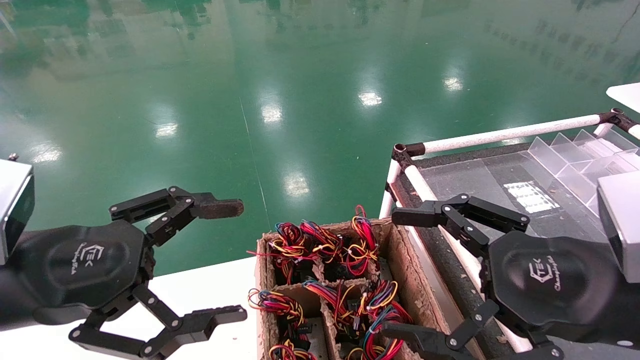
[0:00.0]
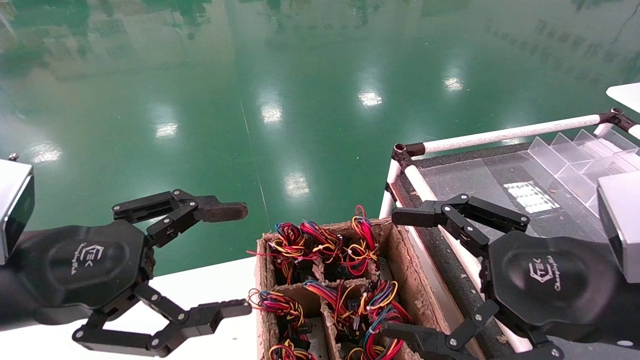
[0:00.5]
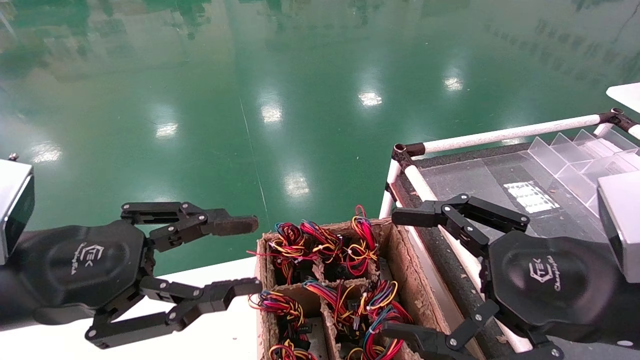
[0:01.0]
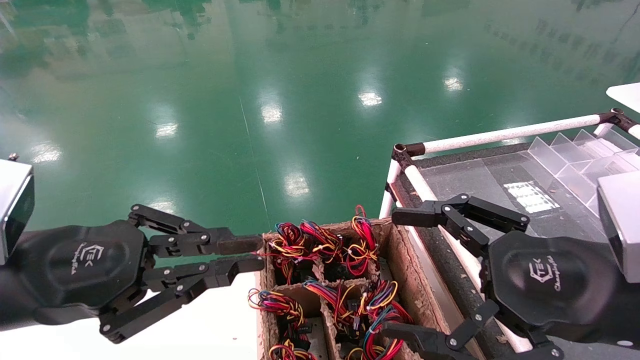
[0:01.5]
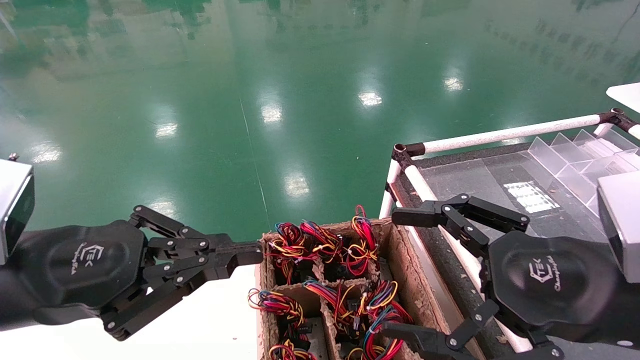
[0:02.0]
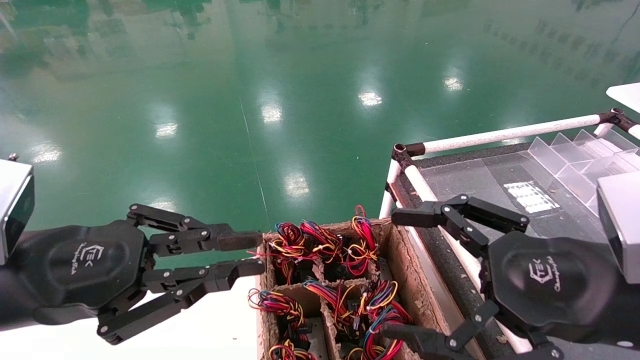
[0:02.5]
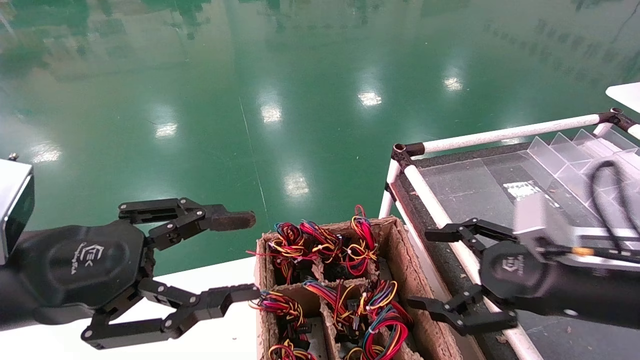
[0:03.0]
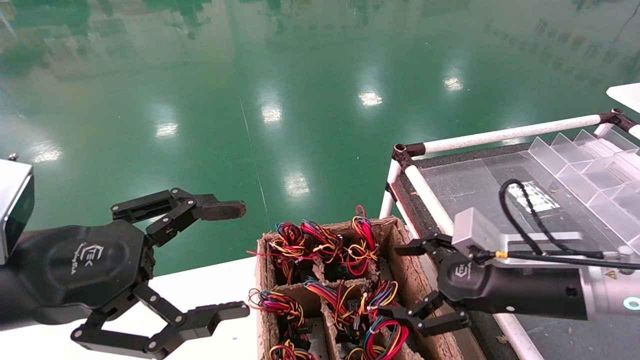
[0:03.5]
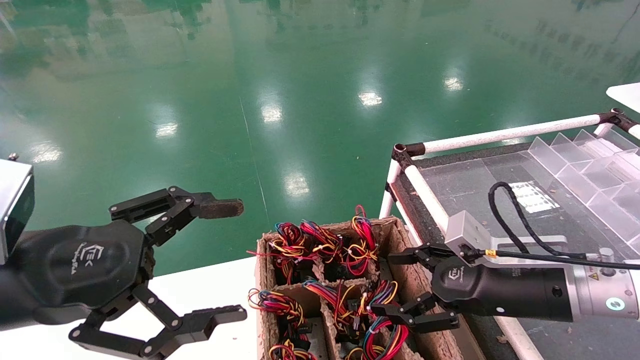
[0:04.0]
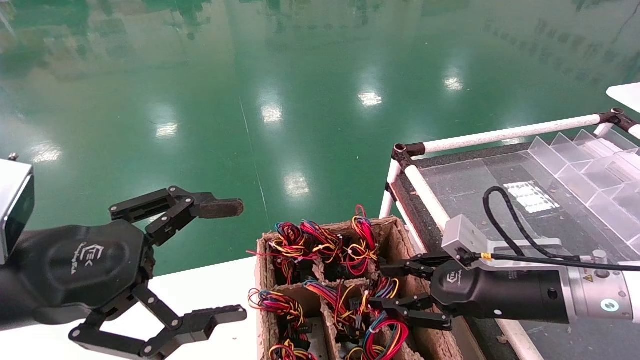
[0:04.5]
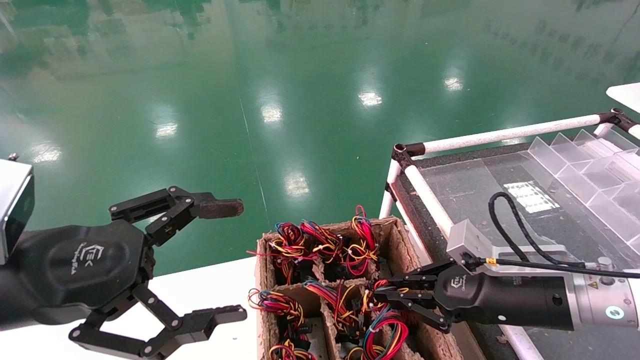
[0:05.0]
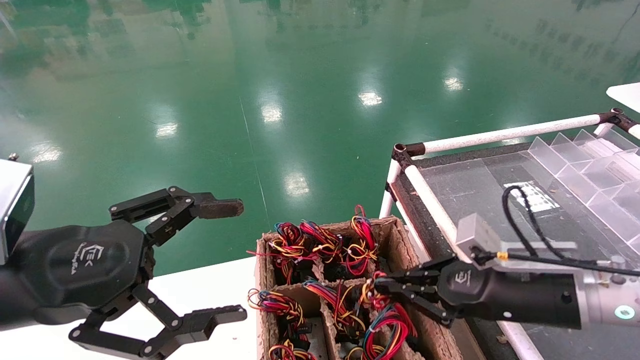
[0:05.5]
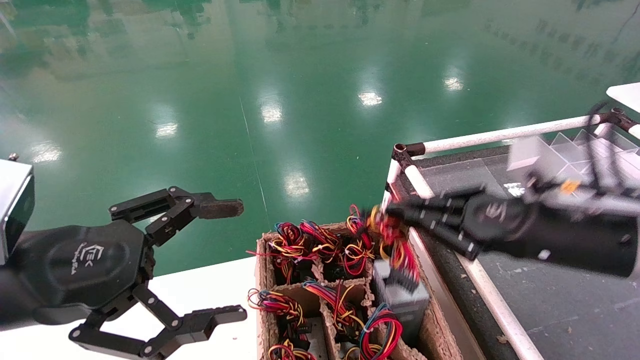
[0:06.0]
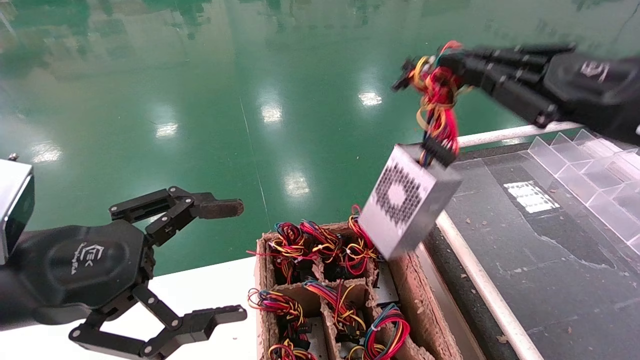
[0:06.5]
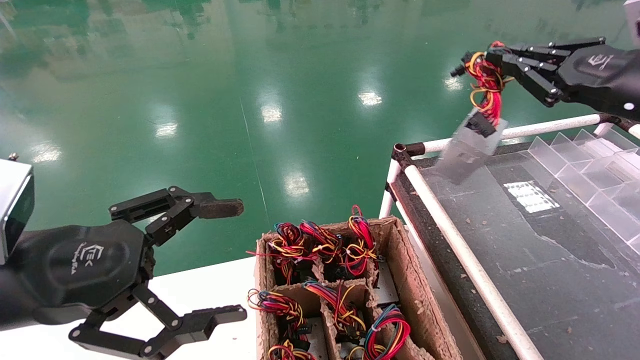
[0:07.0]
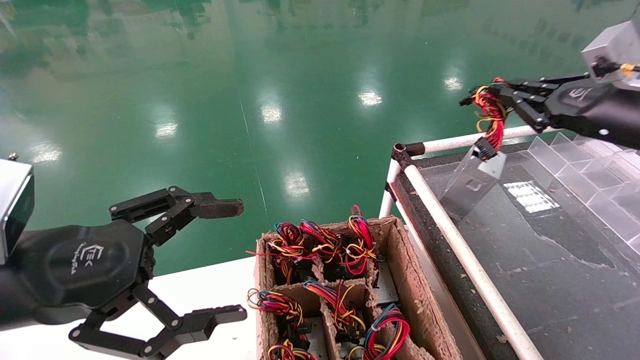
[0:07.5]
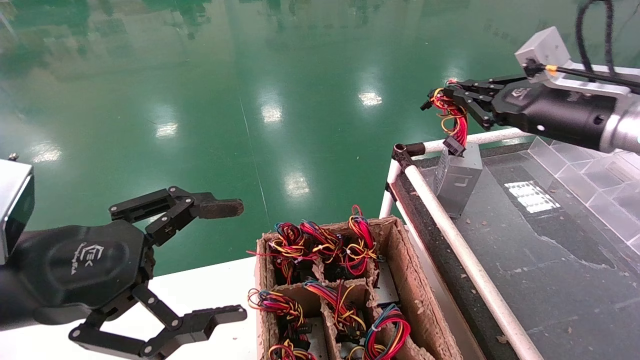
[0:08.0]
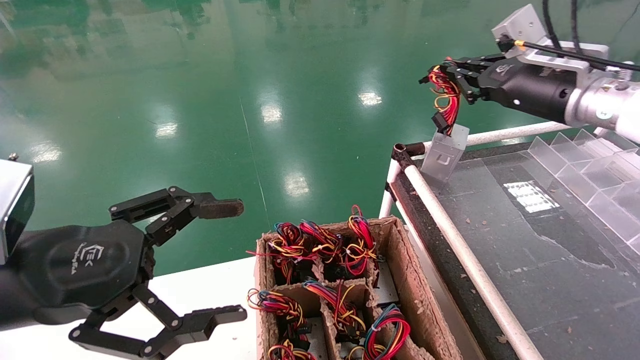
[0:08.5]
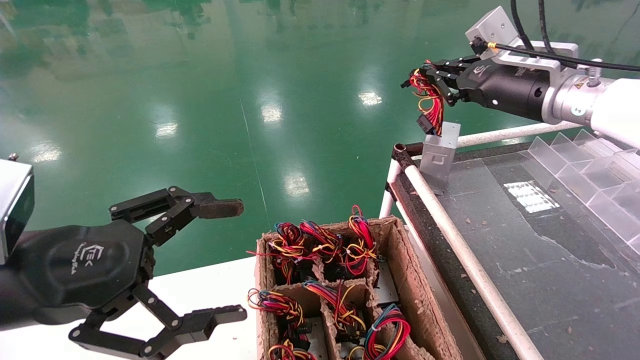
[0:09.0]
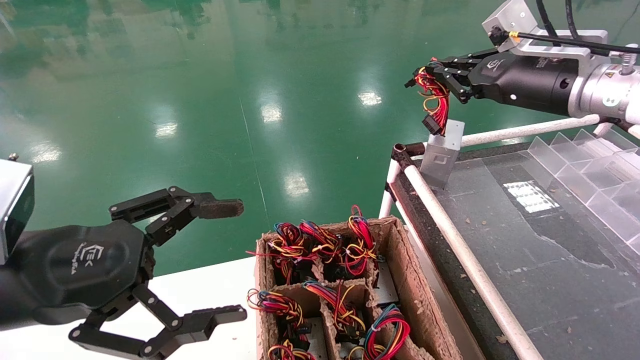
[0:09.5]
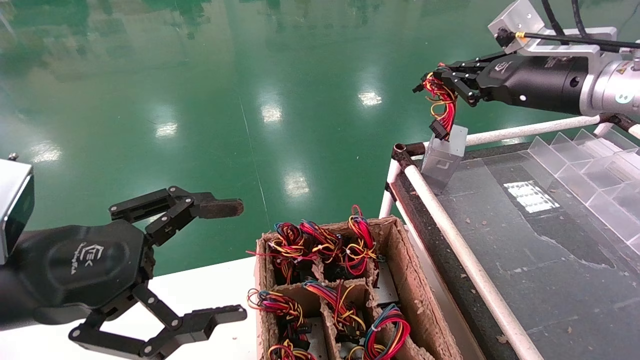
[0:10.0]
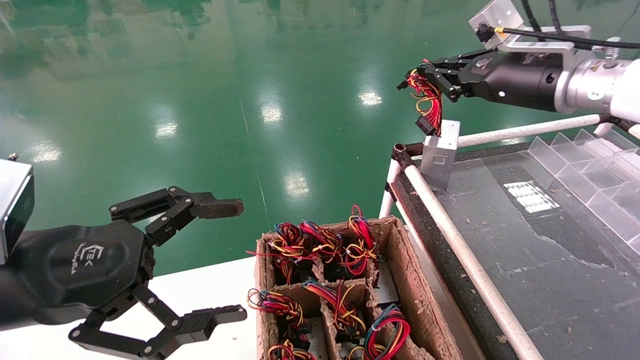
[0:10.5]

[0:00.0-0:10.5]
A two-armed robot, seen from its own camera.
Step, 0:02.0 to 0:05.0: Grab and lift the power supply from the large box.
0:00.0 to 0:02.0: The left gripper closes its fingers.
0:02.0 to 0:04.0: The right gripper travels forward and downward by roughly 15 cm, while the left gripper opens up.
0:04.0 to 0:06.5: The right gripper heads upward, covering roughly 20 cm, and closes its fingers.
0:06.5 to 0:08.5: The right gripper moves forward, about 15 cm.
0:08.5 to 0:10.5: The grippers move only a little.

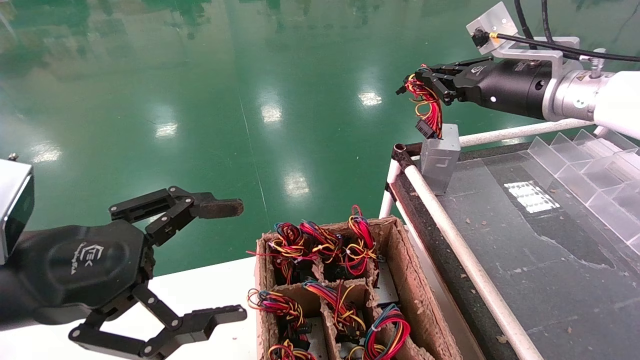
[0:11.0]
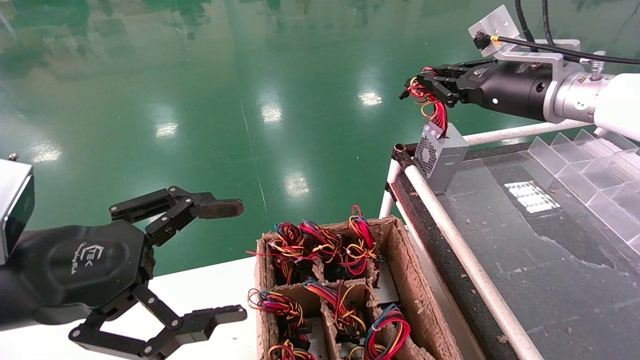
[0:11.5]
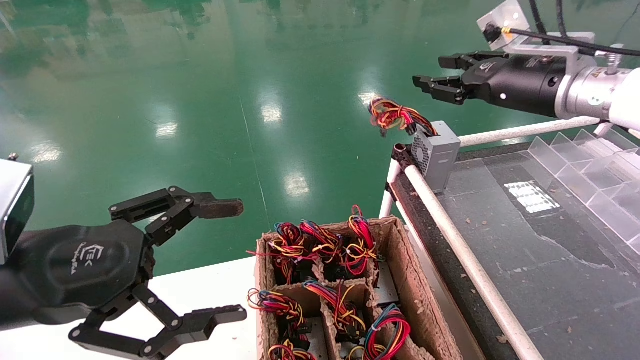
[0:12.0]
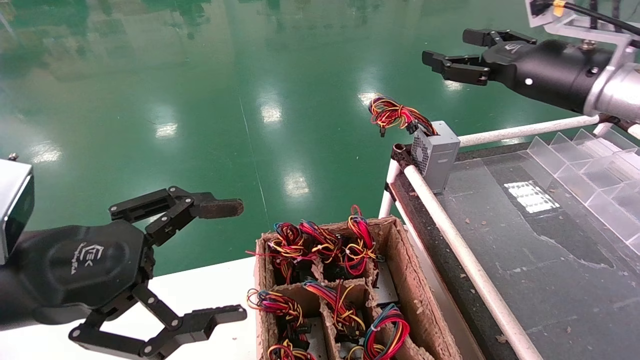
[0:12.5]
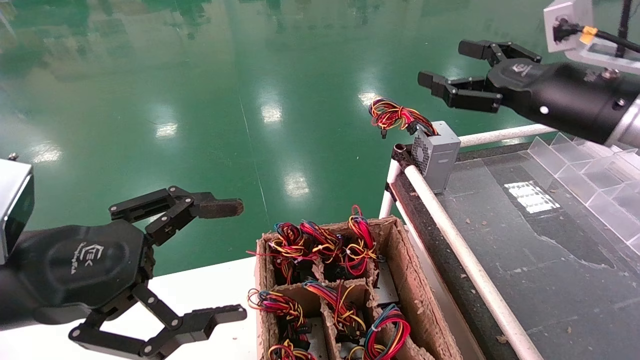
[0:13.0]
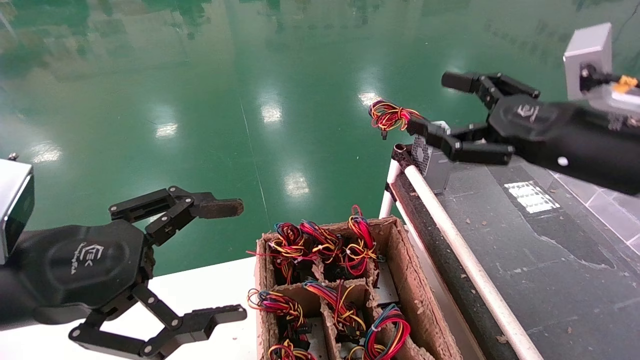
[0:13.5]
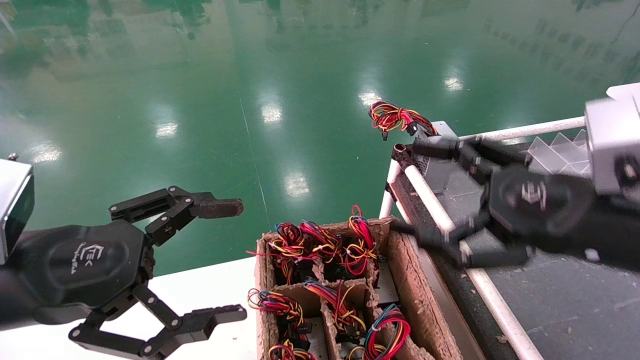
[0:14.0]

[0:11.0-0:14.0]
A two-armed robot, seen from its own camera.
0:11.0 to 0:12.5: The right gripper opens its fingers.
0:12.5 to 0:14.0: The right gripper is displaced backward and downward by some 20 cm.

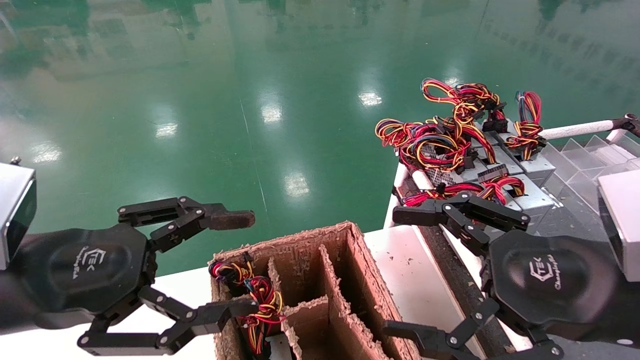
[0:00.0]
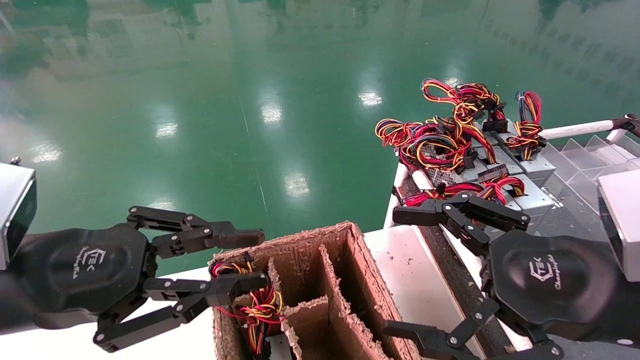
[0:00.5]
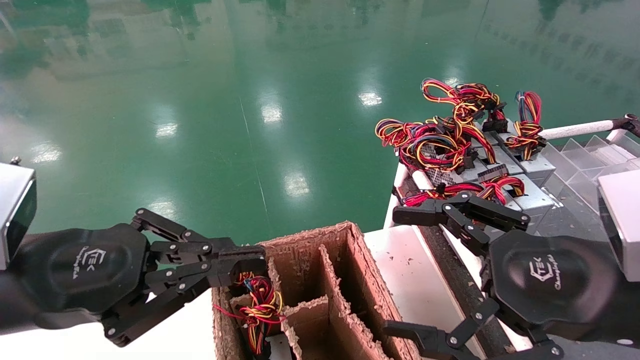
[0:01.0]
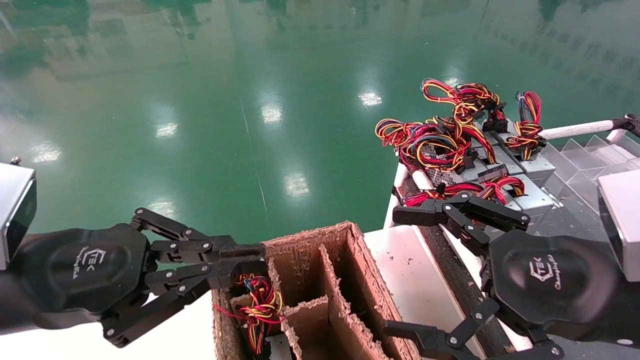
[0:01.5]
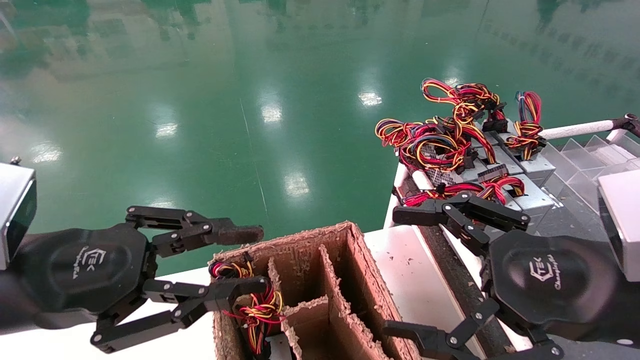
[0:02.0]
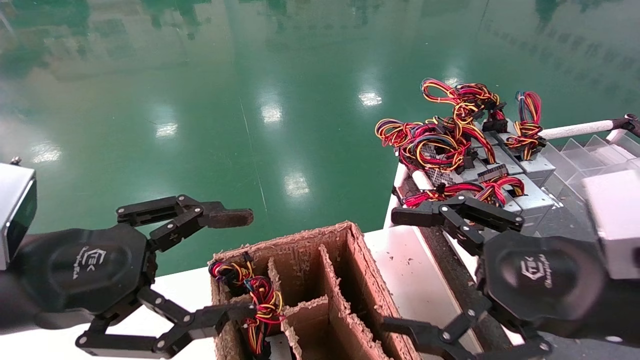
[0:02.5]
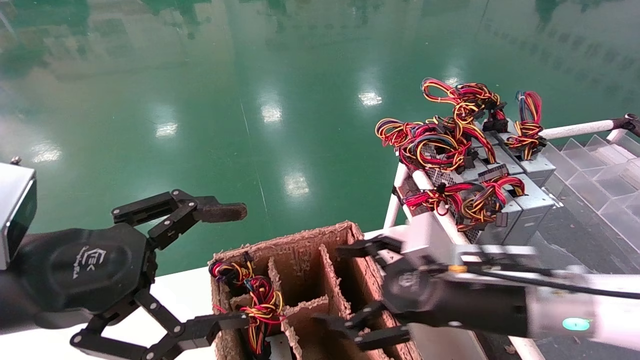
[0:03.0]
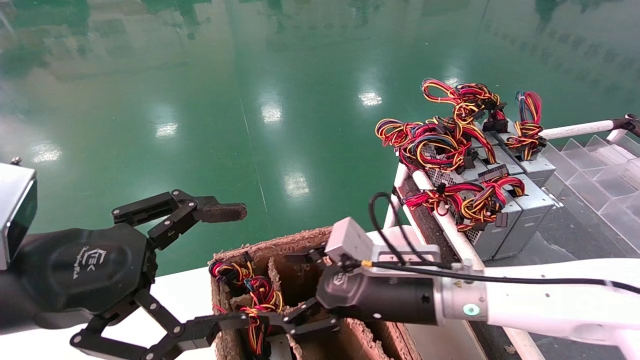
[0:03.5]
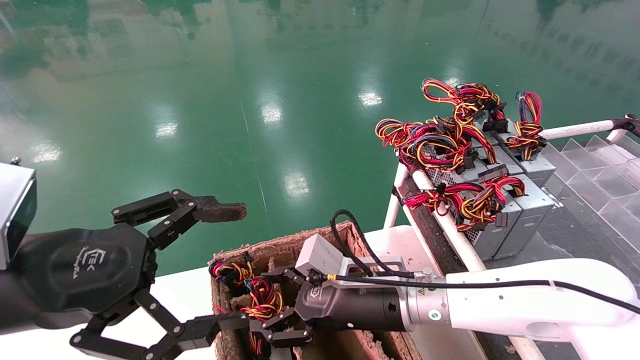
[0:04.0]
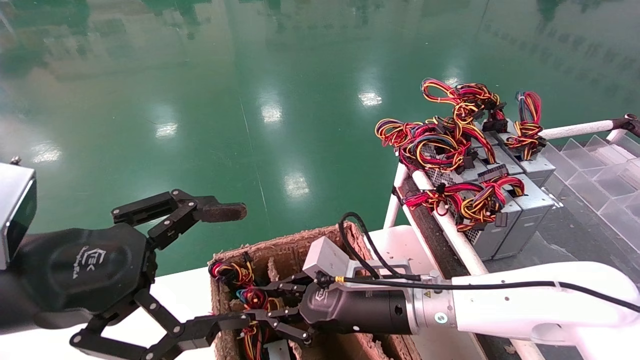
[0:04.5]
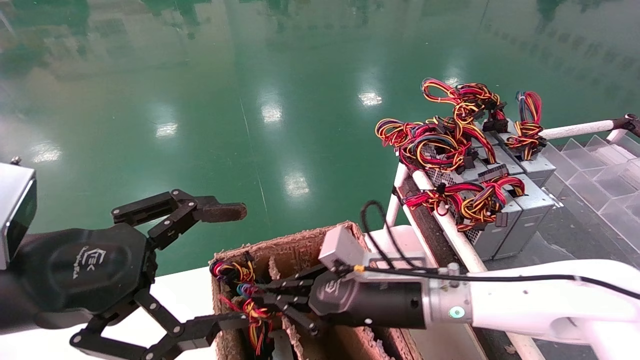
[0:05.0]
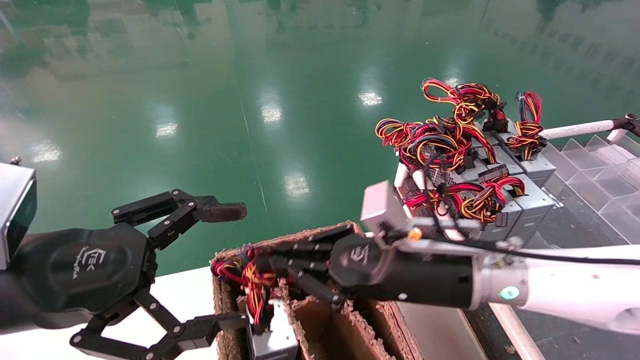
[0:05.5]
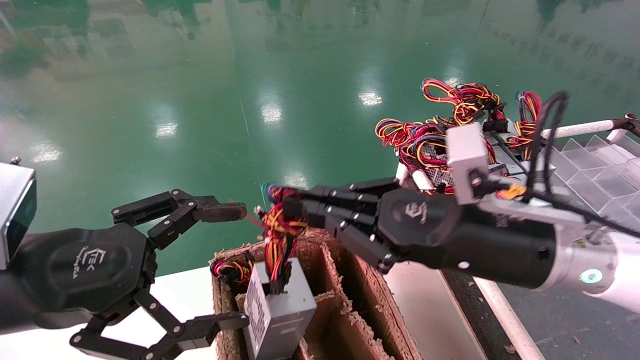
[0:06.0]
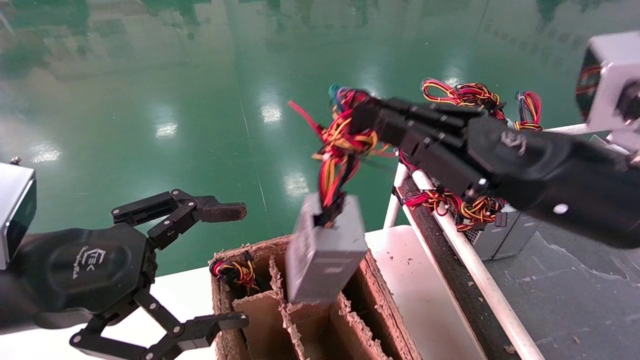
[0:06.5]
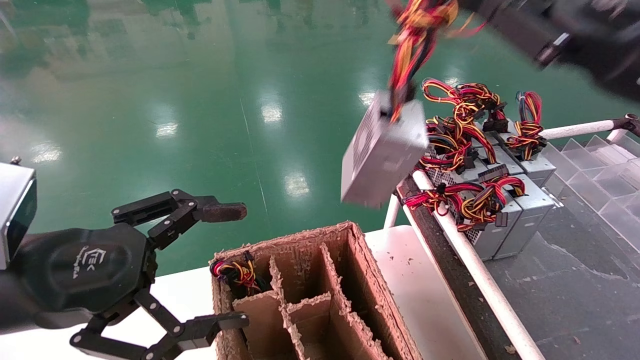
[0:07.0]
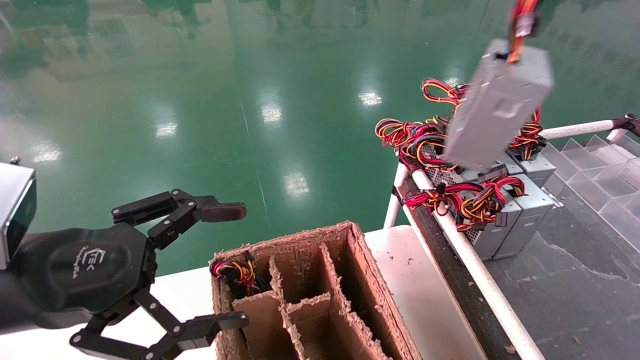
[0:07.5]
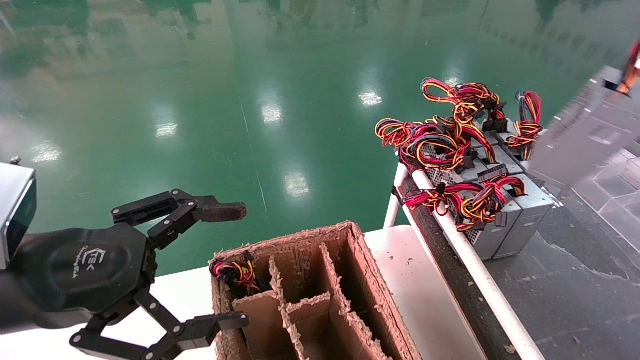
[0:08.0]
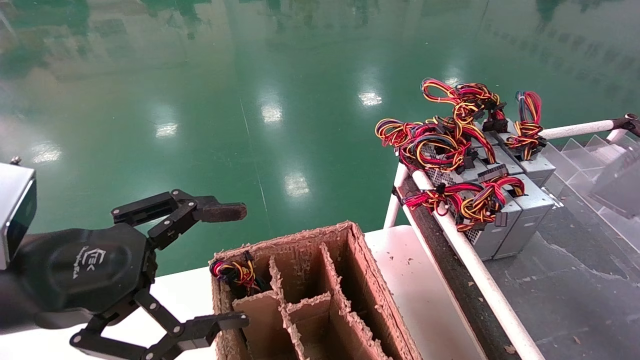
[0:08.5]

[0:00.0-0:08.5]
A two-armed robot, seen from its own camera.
Step, 0:01.5 to 0:05.0: Grab and lift the power supply from the large box.
0:00.0 to 0:02.0: The left gripper closes up.
0:02.0 to 0:04.0: The right gripper heads to the left, forward and downward, covering approximately 25 cm; the left gripper opens up.
0:04.0 to 0:06.5: The right gripper is displaced upward, to the right and backward by roughly 25 cm, and closes up.
0:06.5 to 0:08.5: The right gripper travels to the right by some 30 cm.
